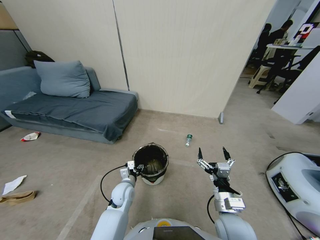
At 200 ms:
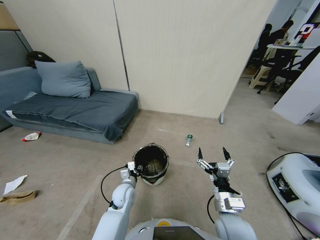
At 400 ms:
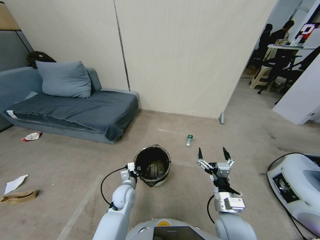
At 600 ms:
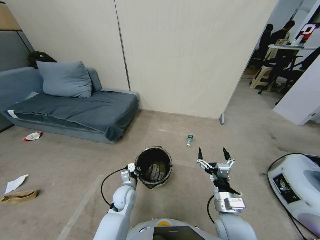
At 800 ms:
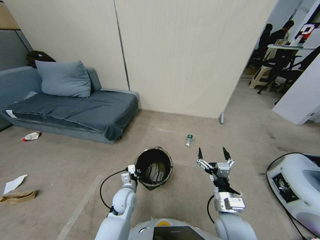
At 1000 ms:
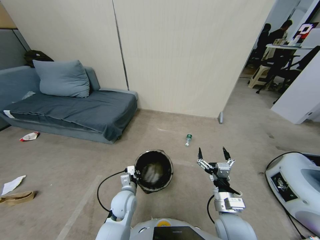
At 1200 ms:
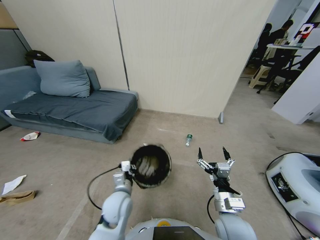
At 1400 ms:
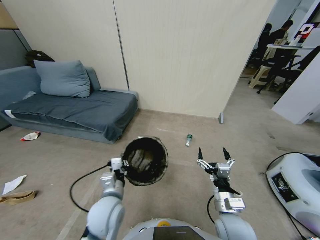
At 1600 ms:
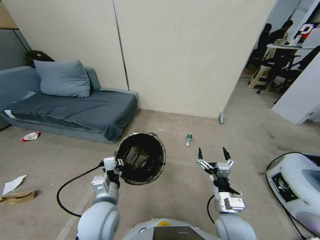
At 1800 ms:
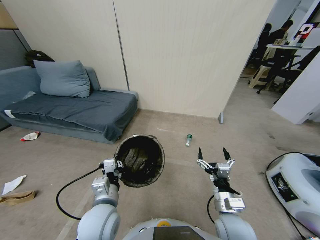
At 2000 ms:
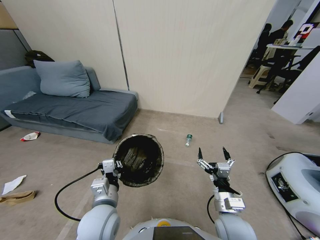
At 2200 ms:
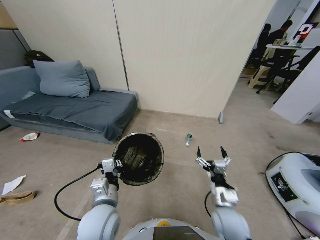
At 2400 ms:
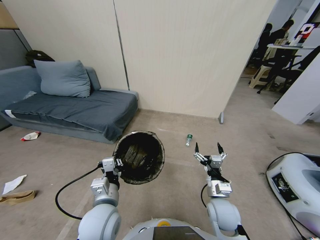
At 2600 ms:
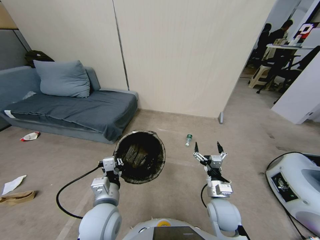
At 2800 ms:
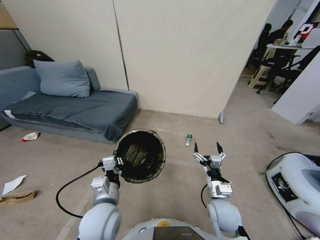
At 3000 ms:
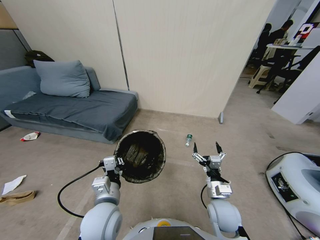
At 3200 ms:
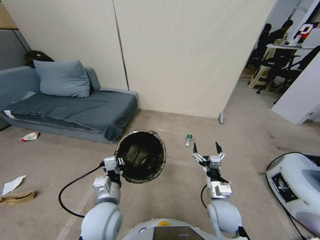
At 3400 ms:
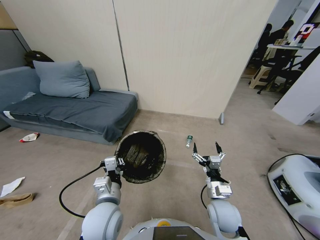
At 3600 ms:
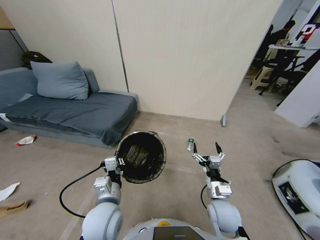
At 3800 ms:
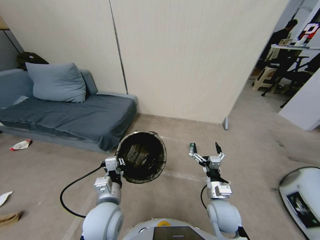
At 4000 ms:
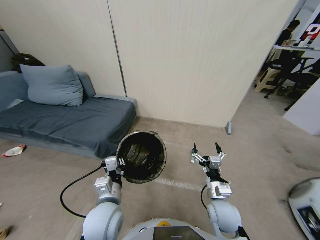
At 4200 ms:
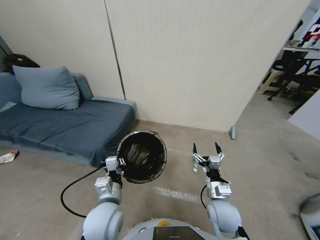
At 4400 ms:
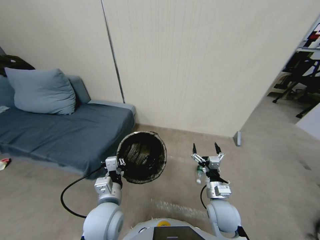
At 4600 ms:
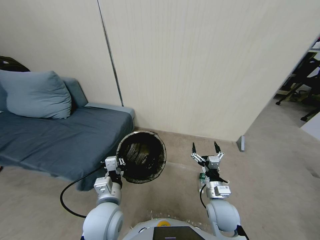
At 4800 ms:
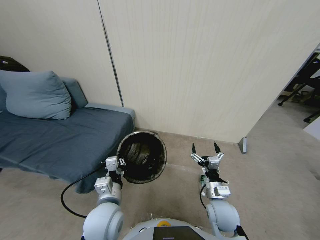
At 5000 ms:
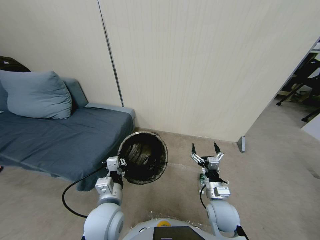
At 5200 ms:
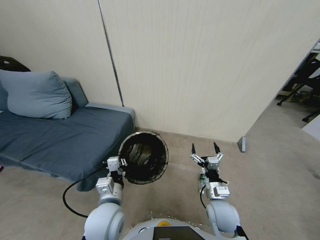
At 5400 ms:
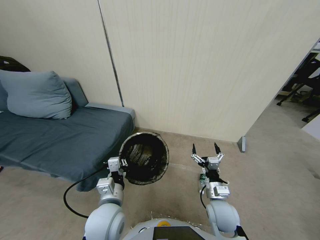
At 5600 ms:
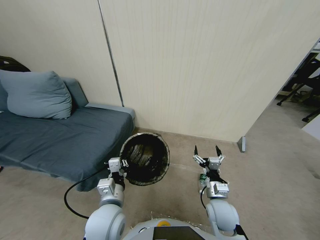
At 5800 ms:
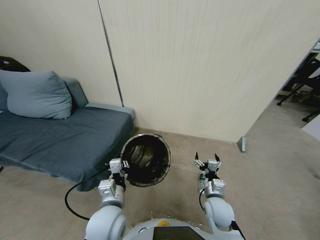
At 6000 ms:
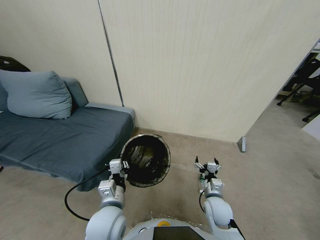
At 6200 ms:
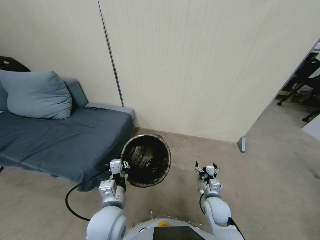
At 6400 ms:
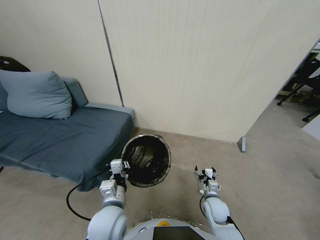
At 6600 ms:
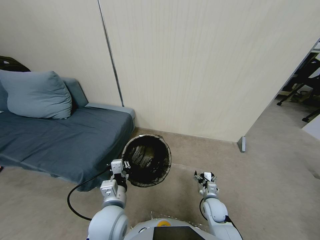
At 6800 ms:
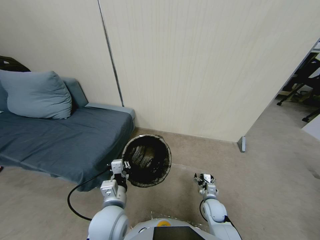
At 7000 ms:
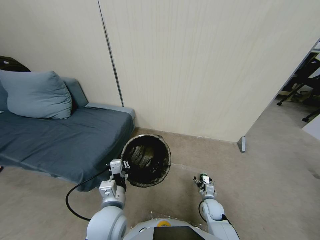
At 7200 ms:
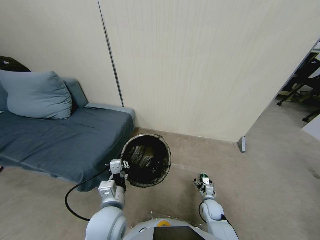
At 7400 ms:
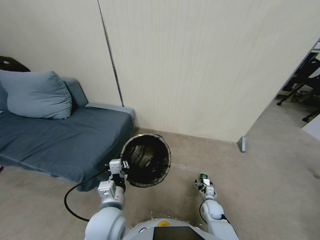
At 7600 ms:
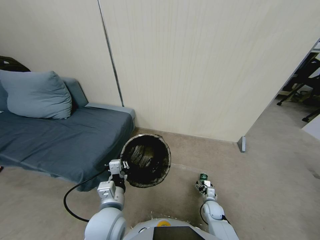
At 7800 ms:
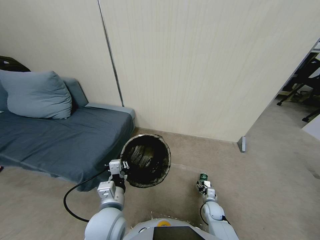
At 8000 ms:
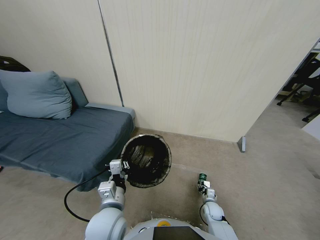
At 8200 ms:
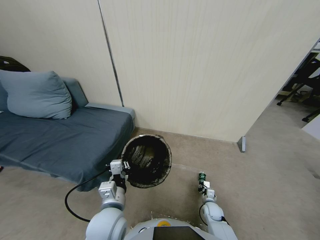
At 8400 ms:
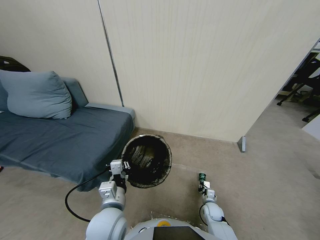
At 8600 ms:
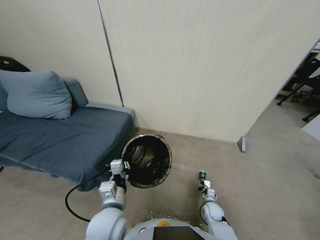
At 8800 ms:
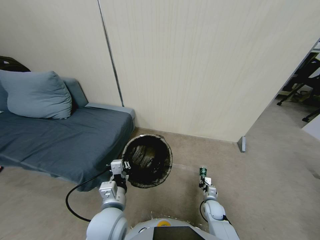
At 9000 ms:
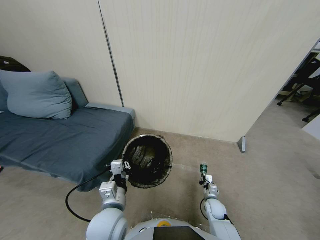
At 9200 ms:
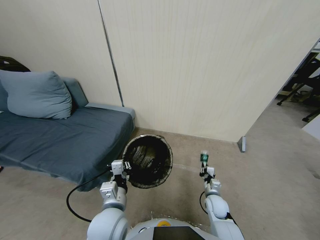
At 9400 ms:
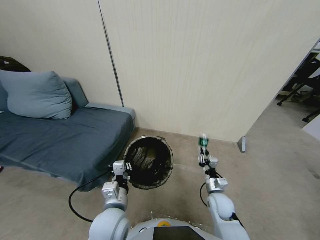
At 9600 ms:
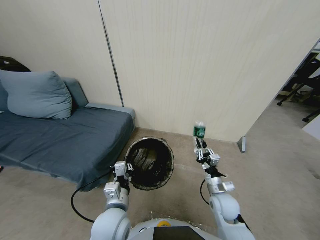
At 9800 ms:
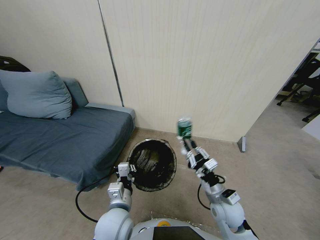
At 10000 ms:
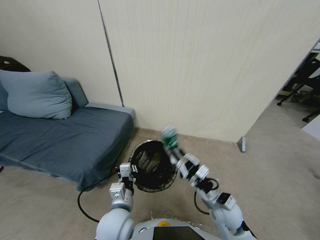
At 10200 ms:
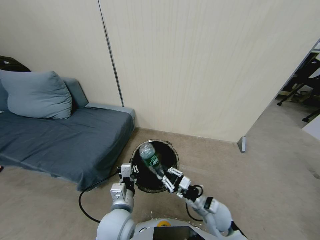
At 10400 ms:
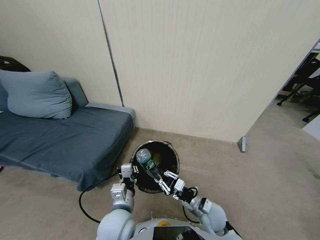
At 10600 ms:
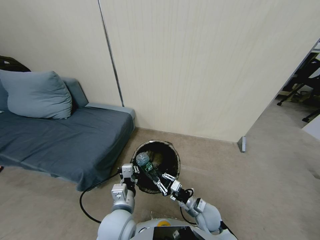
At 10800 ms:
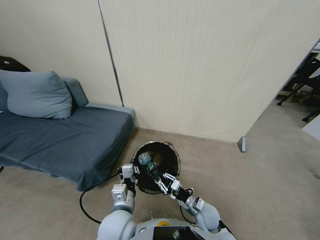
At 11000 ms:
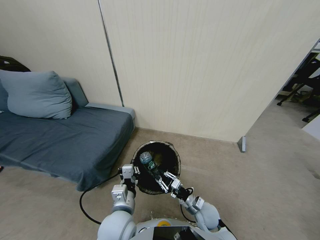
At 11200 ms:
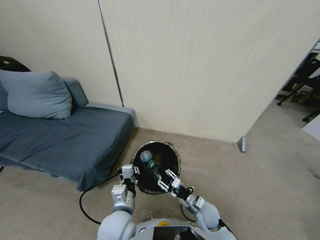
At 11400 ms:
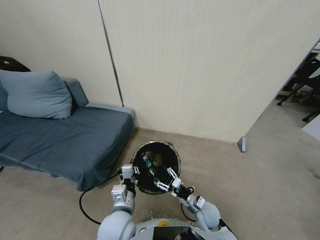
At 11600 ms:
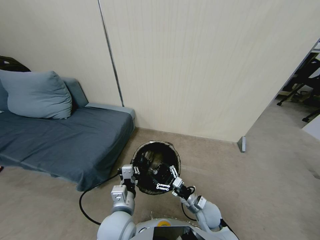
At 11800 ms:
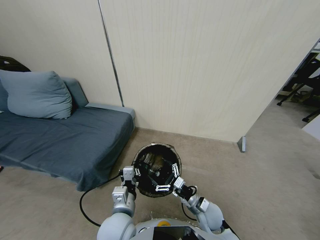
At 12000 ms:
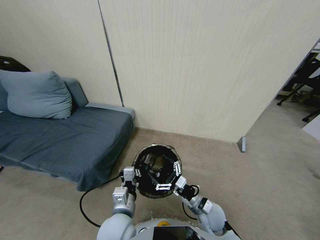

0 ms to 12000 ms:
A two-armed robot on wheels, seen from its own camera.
Task of the whole recording: Pick up the trash bin, then pick up the garbage from the floor and place it into the trash bin.
0 ms to 1600 ms: The left gripper heads upward and backward, covering some 20 cm, and closes up.
1600 ms to 3000 ms: The right gripper ends up about 5 cm from where it was.
4400 ms to 6000 ms: The right gripper heads downward, covering approximately 5 cm.
6000 ms to 7600 ms: The right gripper is displaced downward by some 15 cm.
7600 ms to 9000 ms: The right gripper heads upward, covering roughly 10 cm, and closes its fingers.
9000 ms to 10400 ms: The right gripper travels upward and to the left by about 10 cm.
10400 ms to 12000 ms: The right gripper goes roughly 10 cm upward, and opens its fingers.

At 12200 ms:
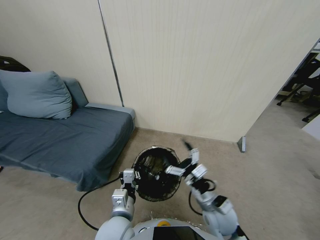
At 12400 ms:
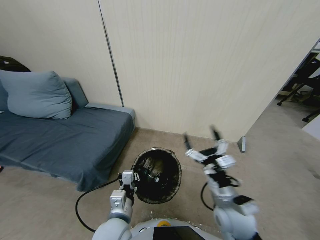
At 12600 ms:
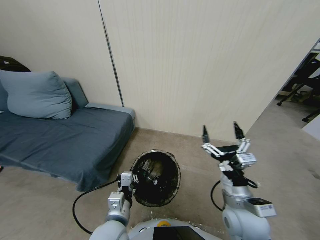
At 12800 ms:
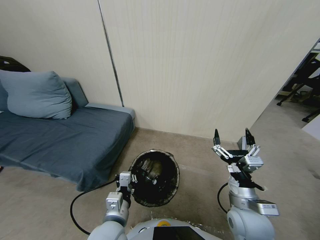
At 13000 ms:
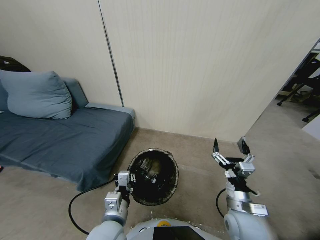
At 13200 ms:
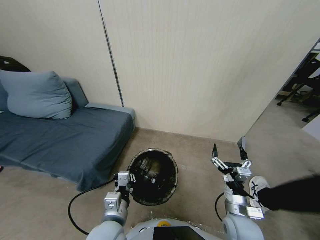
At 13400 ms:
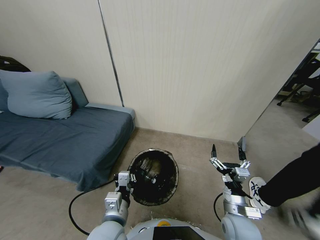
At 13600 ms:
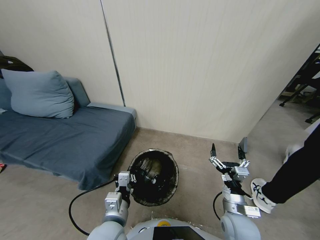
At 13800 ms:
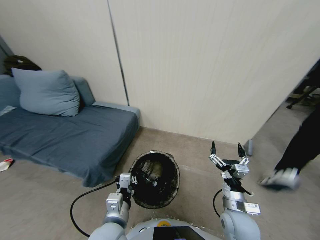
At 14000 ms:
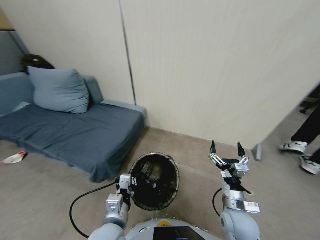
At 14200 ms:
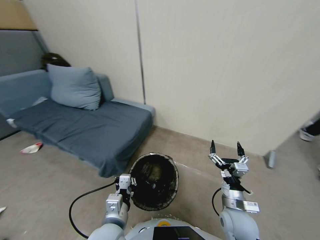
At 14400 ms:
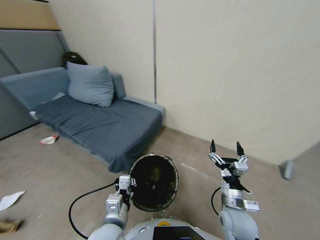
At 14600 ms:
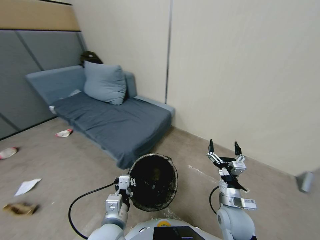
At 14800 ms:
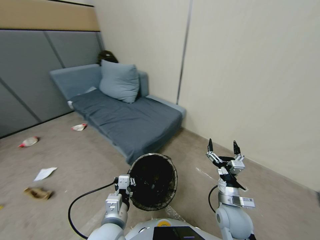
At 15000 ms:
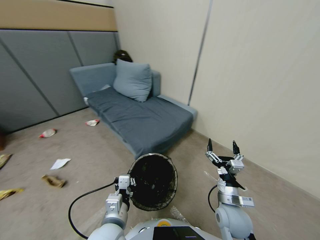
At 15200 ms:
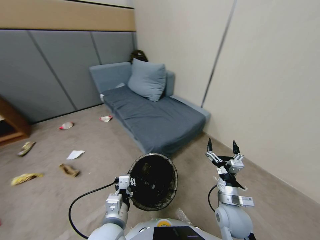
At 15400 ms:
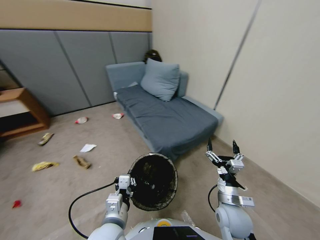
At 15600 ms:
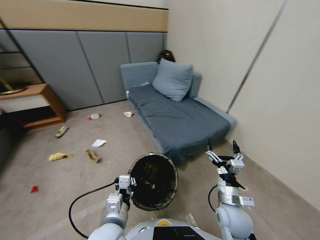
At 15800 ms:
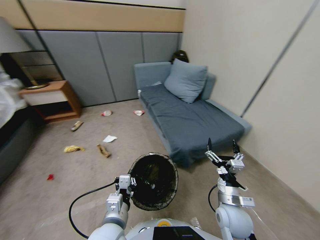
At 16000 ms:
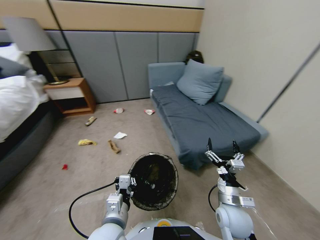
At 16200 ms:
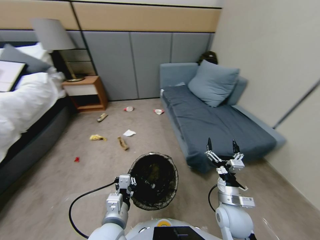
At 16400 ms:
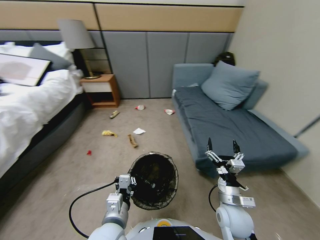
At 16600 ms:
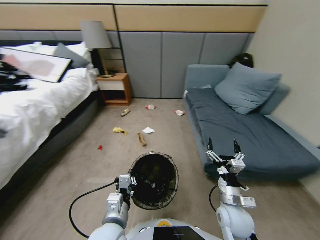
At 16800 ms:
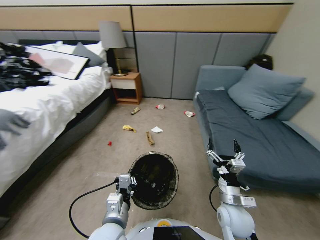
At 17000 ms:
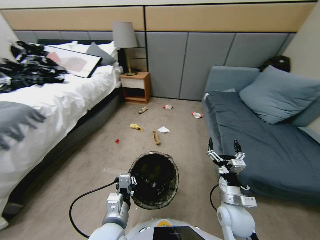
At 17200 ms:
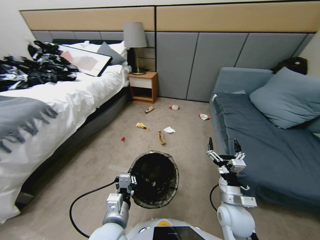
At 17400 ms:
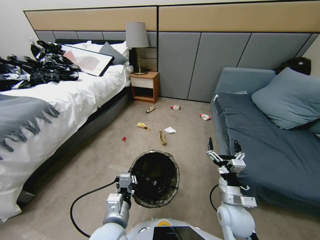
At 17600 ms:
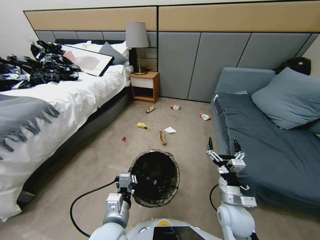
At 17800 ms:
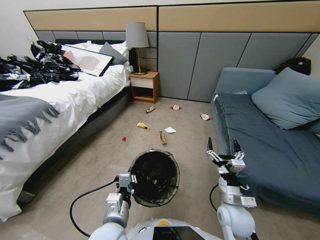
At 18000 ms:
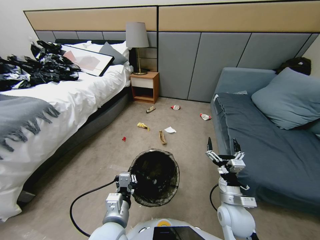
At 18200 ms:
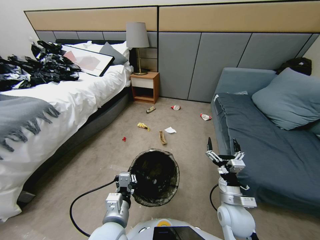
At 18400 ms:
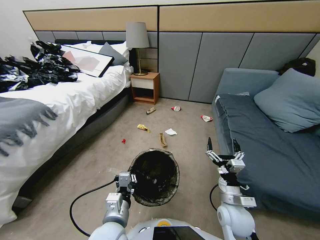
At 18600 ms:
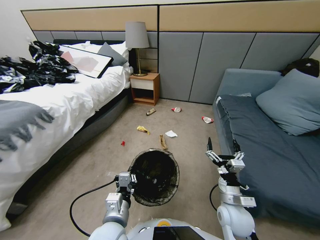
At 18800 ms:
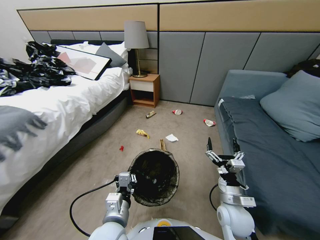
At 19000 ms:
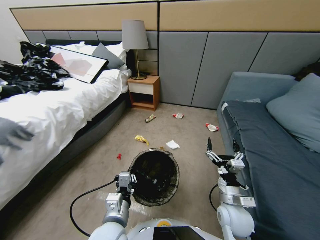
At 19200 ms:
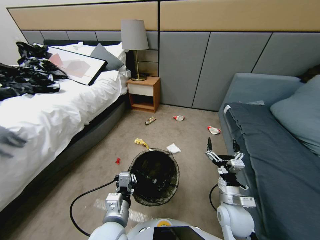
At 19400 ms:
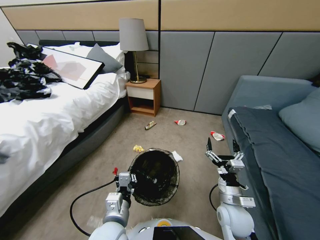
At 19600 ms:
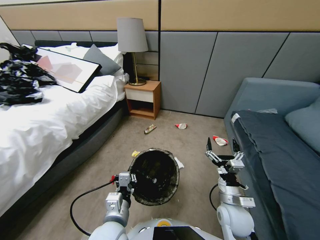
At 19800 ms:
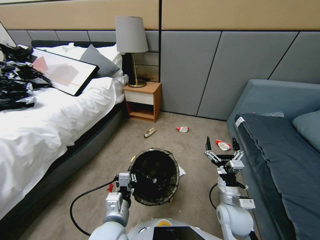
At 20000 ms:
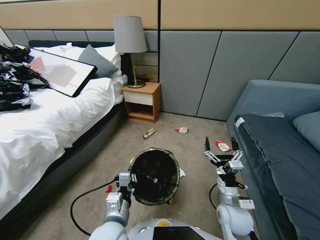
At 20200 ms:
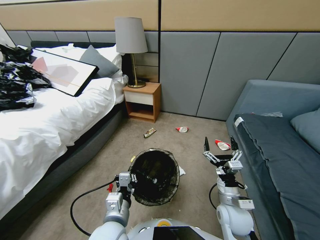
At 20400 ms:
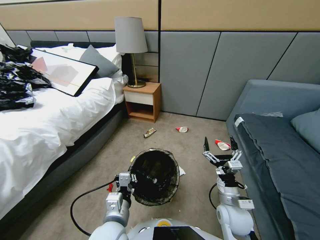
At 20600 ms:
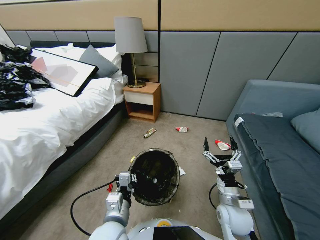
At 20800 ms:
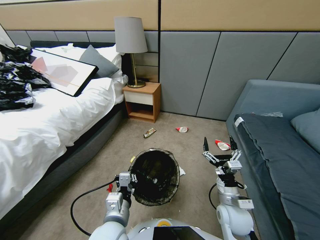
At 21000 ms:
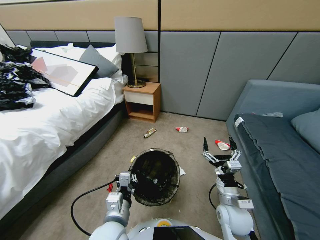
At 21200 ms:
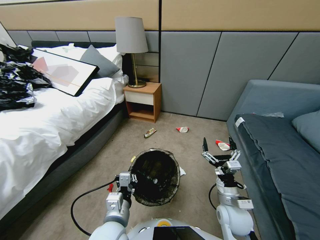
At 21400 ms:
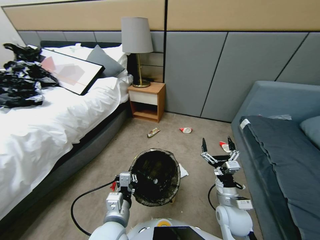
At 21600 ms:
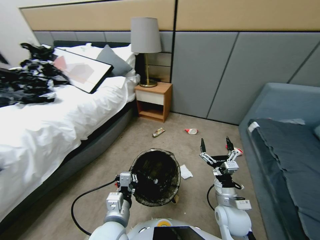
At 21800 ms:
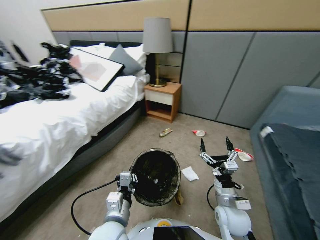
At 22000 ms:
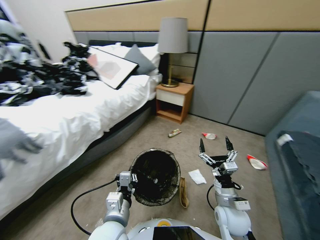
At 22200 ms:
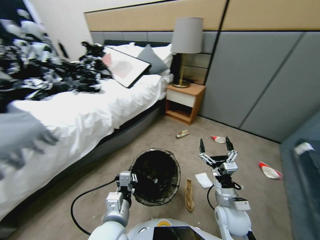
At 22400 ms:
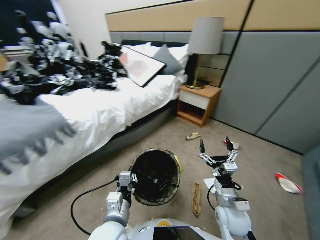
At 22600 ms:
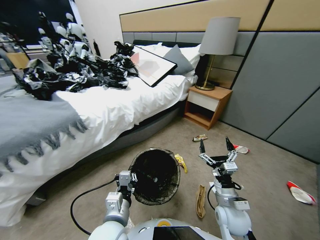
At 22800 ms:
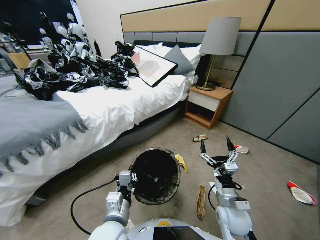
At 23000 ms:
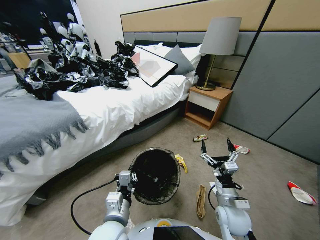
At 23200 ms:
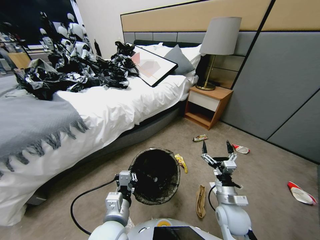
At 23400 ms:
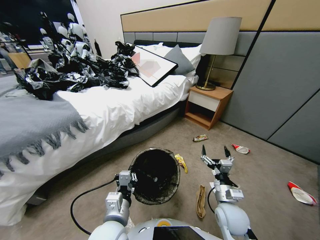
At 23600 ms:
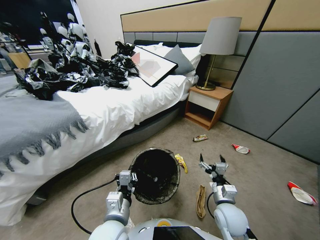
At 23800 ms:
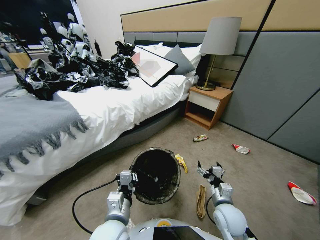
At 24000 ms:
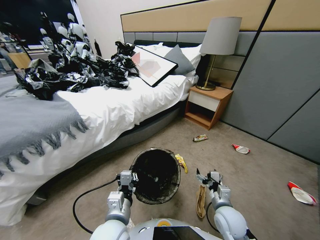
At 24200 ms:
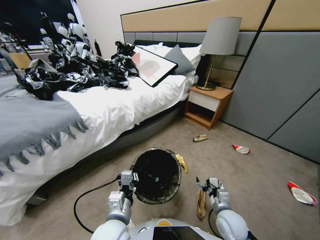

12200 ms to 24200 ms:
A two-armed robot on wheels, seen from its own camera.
Task of the whole recording: Pick up the trash bin, then pick up the garbage from the floor and place it into the trash bin.
12200 ms to 13800 ms: The right gripper changes place by roughly 5 cm.
19800 ms to 21200 ms: The two grippers keep their place.
22600 ms to 24200 ms: The right gripper shifts some 10 cm downward.
